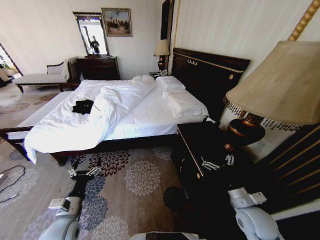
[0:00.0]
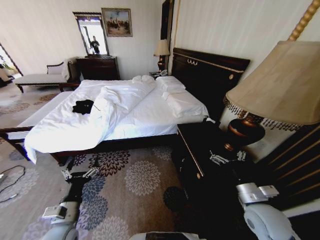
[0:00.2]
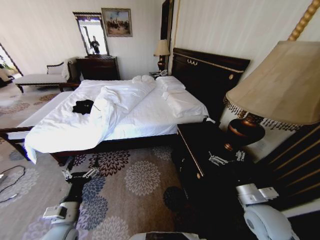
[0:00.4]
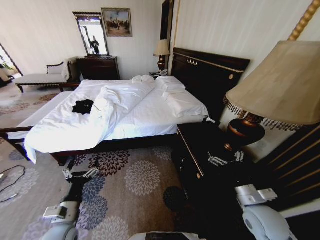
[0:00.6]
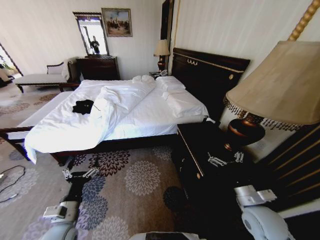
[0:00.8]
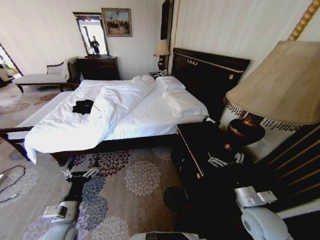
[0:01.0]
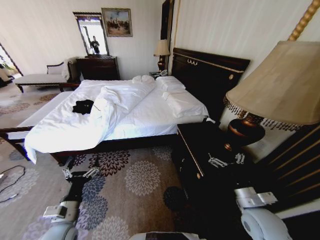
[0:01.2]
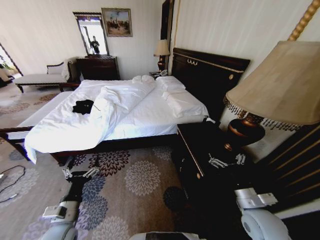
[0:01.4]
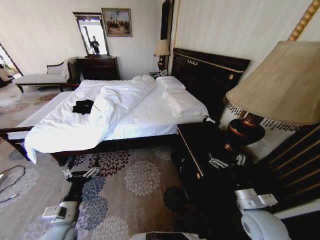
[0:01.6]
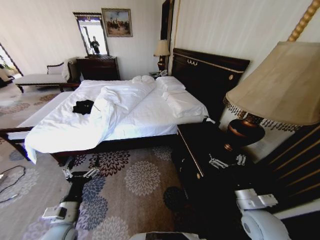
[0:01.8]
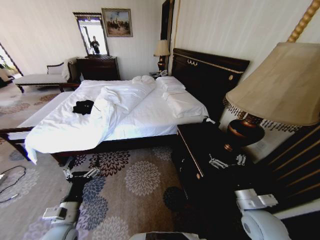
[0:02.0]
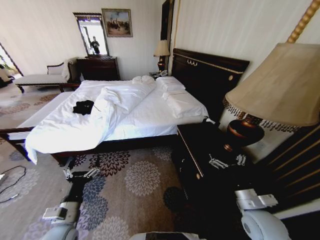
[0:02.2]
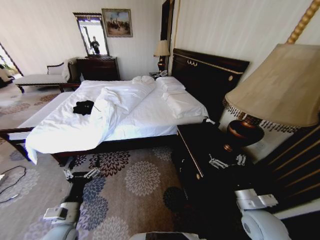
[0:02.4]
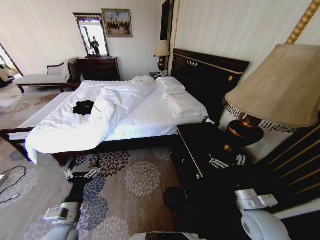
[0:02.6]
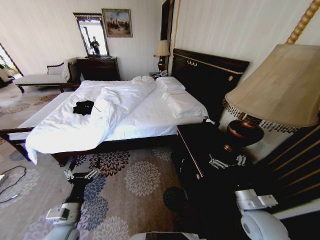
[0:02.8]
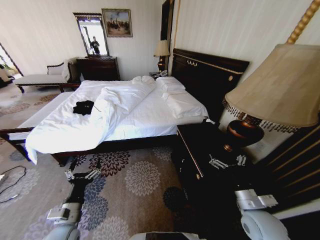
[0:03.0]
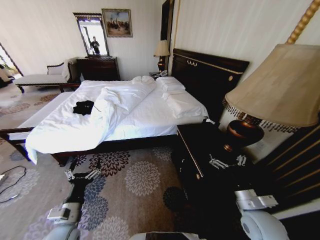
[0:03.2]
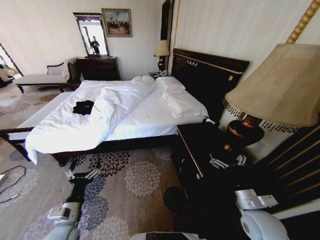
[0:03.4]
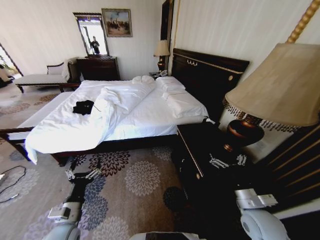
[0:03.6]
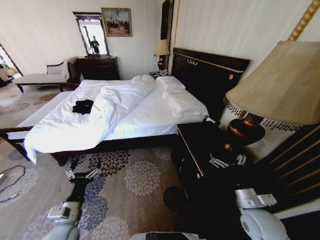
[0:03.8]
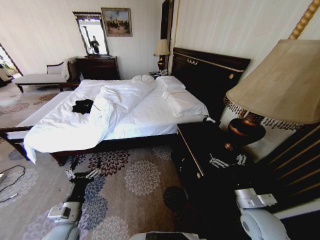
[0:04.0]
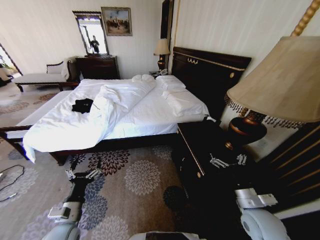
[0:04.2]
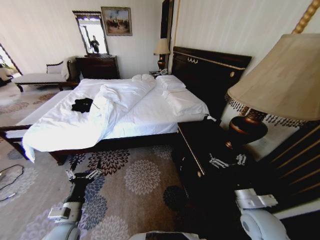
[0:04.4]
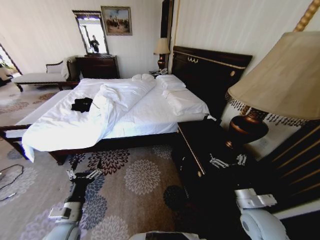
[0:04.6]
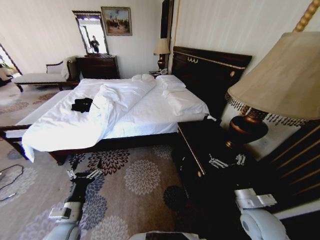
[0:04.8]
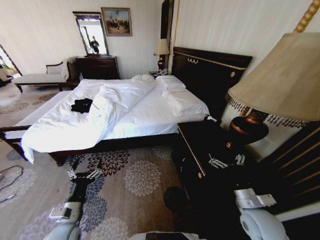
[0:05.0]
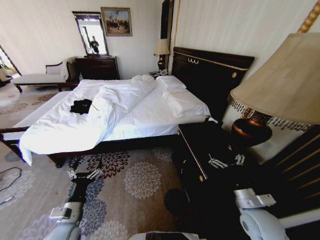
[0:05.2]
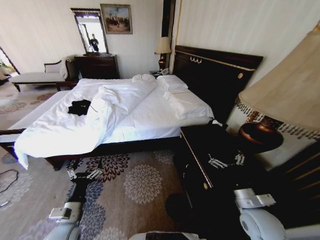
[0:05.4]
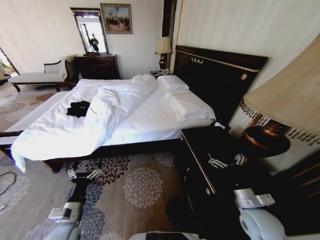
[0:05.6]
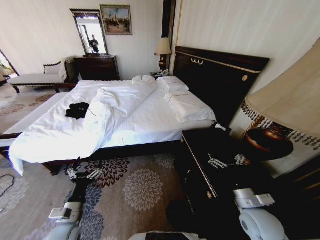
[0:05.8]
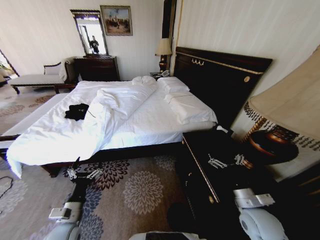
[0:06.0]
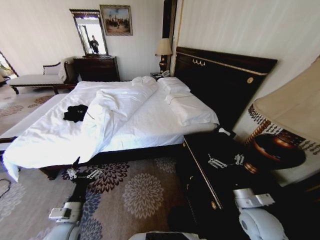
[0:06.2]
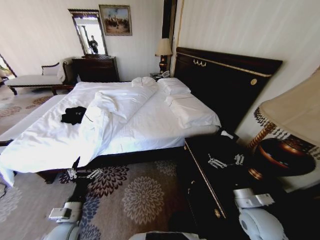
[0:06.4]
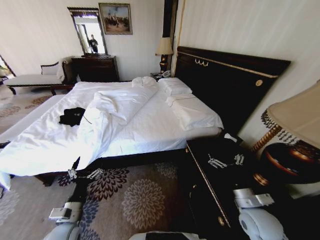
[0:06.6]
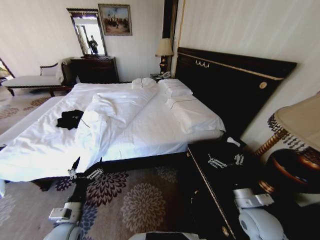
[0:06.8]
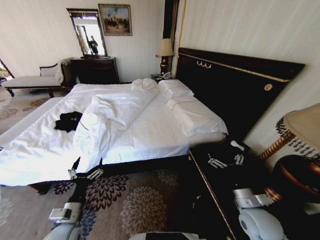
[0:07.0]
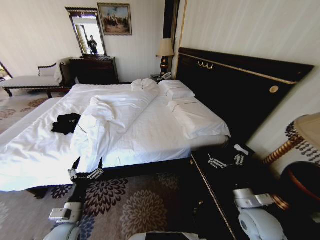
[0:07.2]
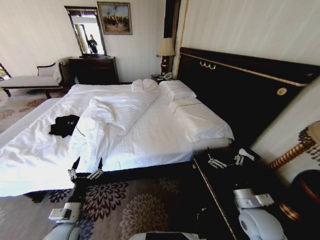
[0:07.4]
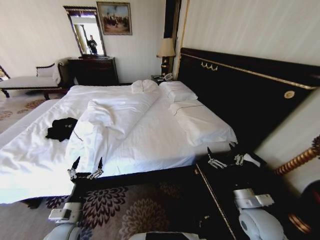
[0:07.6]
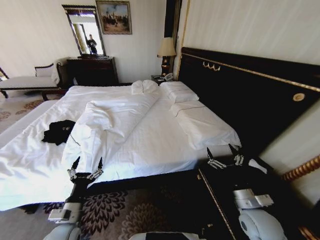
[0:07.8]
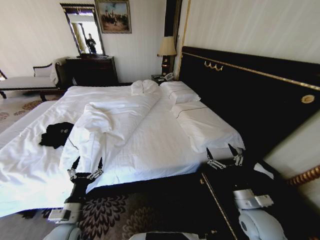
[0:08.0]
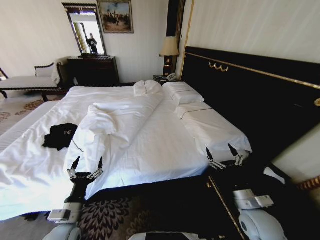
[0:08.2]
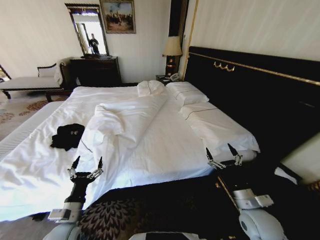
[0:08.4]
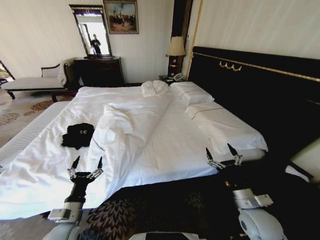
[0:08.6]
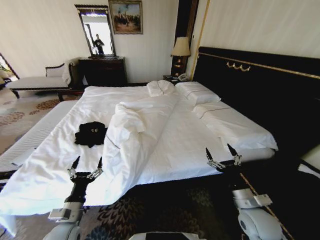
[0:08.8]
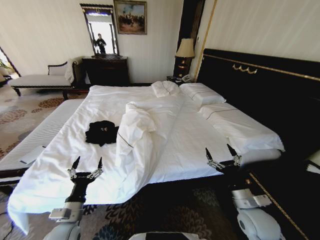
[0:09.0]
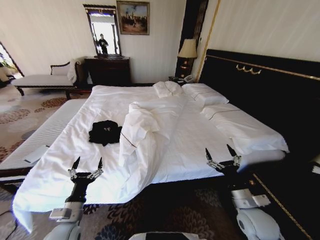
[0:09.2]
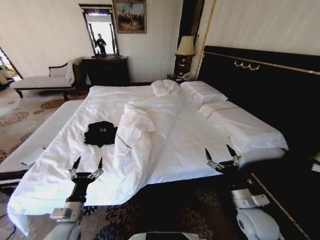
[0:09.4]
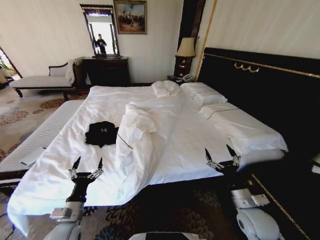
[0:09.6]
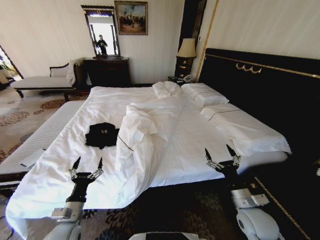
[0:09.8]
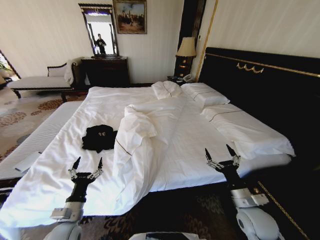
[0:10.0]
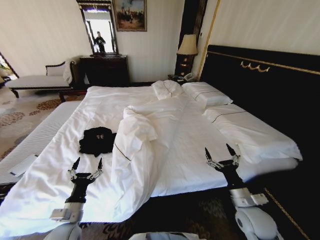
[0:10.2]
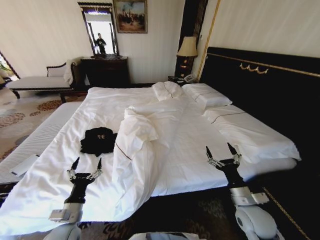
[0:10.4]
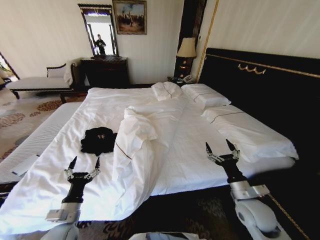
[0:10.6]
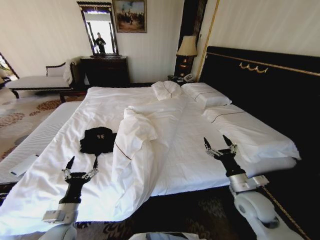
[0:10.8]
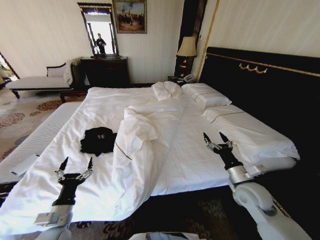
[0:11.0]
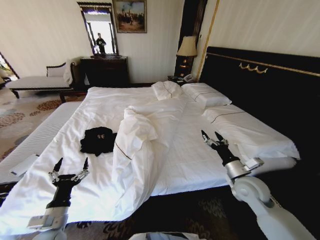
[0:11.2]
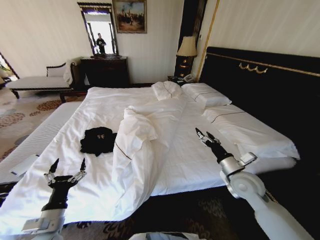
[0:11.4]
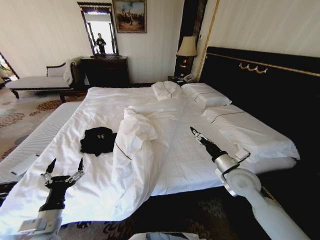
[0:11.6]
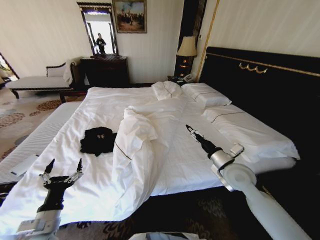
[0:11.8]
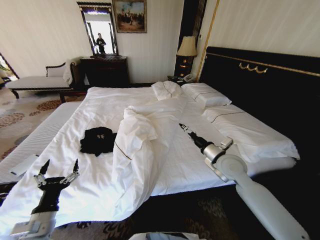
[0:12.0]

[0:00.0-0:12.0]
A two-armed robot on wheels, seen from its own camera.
Task of the whole recording: Fold the clothes on the bed.
0:01.6 to 0:03.0: Both grippers stay put.
0:03.0 to 0:04.4: Both grippers stay put.
0:10.4 to 0:12.0: The left gripper changes place by roughly 5 cm. Meanwhile the right gripper is displaced forward and upward by some 20 cm.

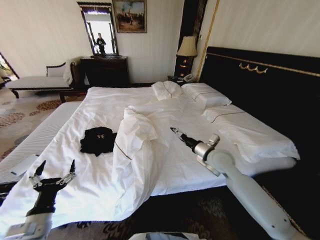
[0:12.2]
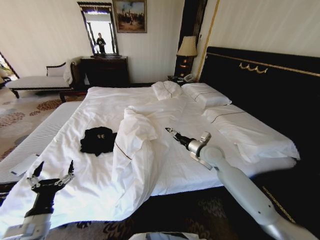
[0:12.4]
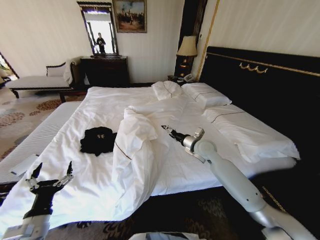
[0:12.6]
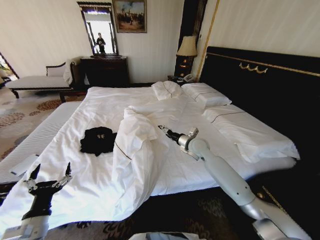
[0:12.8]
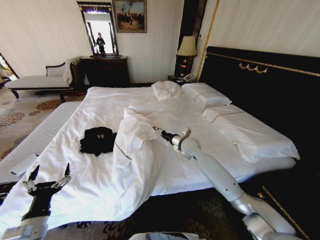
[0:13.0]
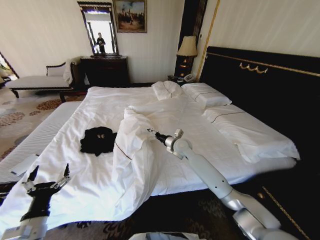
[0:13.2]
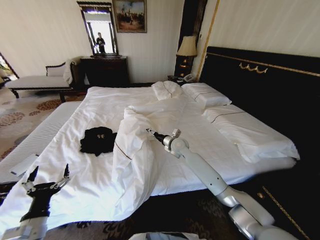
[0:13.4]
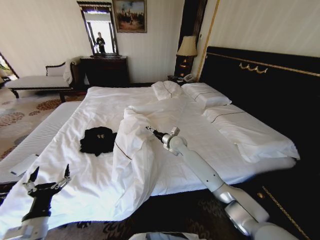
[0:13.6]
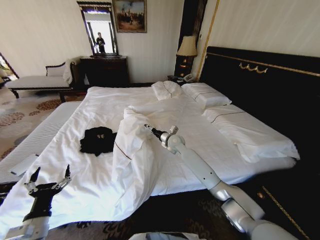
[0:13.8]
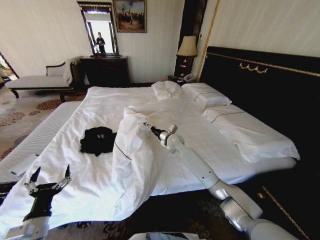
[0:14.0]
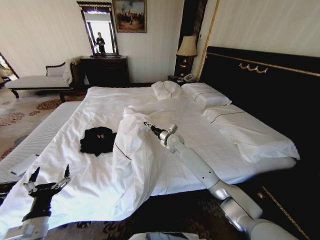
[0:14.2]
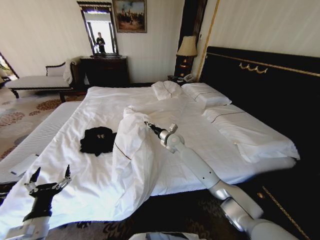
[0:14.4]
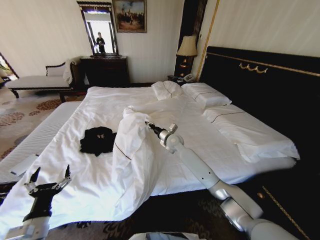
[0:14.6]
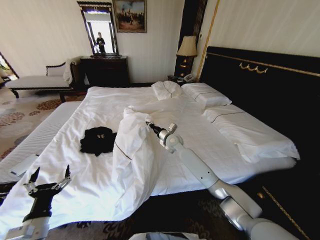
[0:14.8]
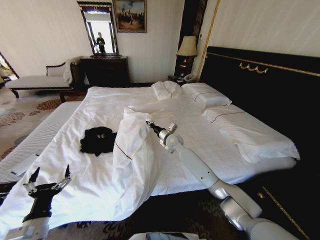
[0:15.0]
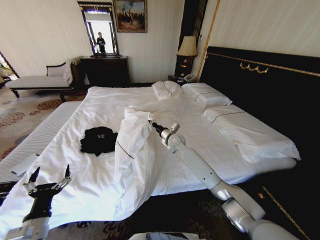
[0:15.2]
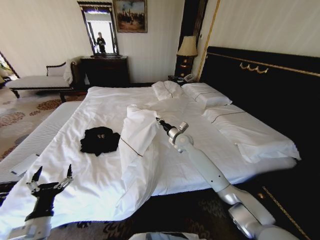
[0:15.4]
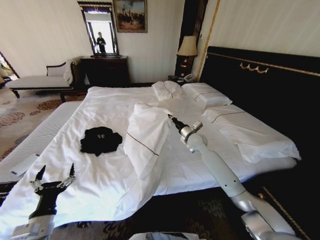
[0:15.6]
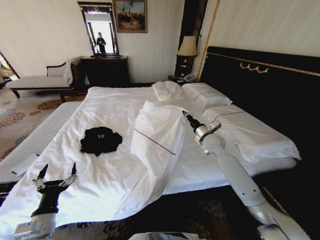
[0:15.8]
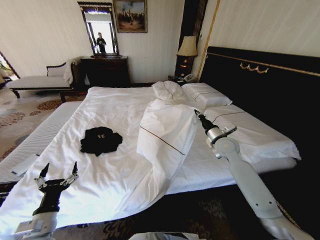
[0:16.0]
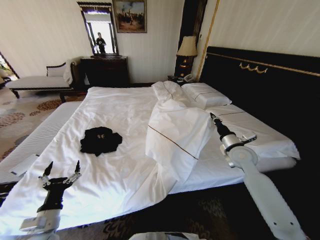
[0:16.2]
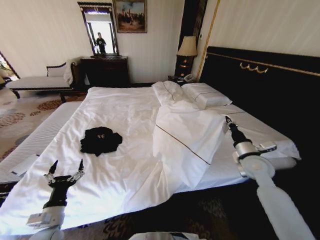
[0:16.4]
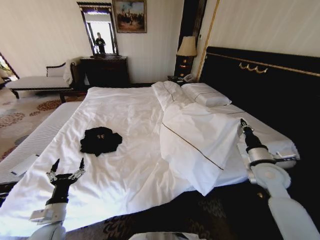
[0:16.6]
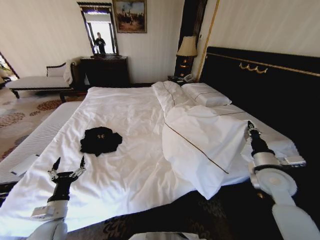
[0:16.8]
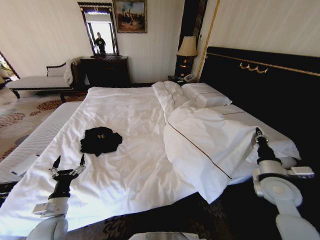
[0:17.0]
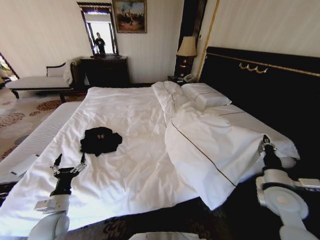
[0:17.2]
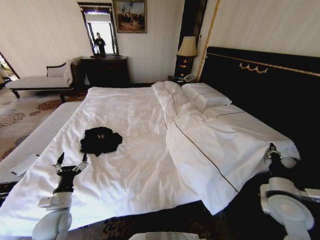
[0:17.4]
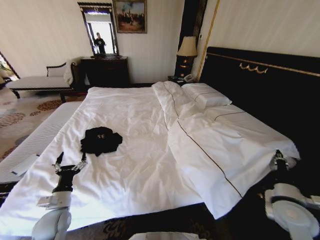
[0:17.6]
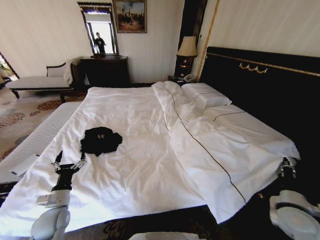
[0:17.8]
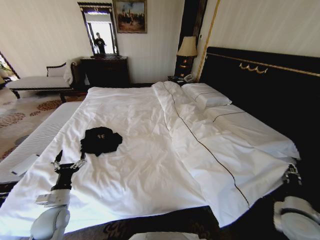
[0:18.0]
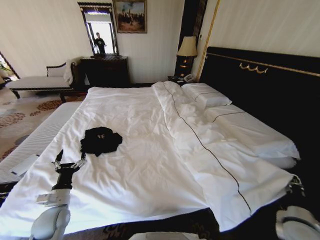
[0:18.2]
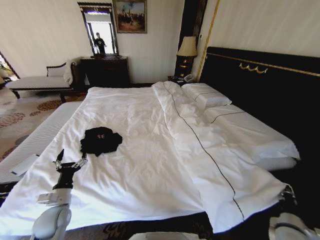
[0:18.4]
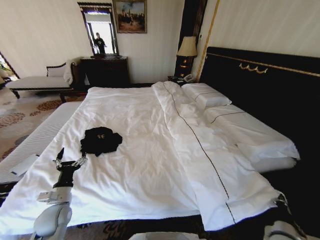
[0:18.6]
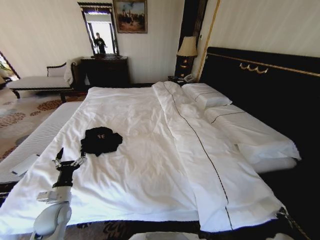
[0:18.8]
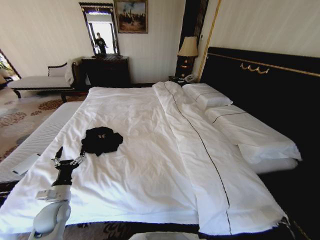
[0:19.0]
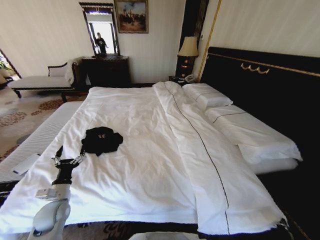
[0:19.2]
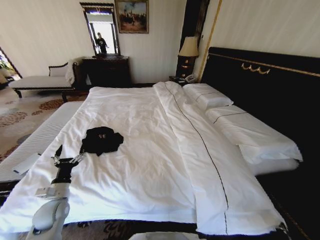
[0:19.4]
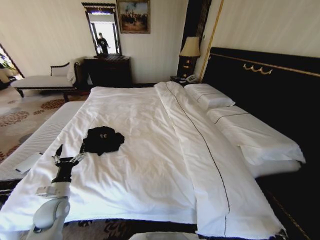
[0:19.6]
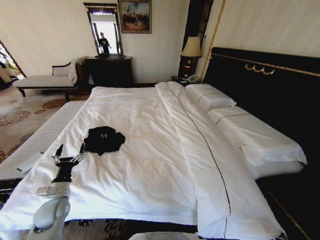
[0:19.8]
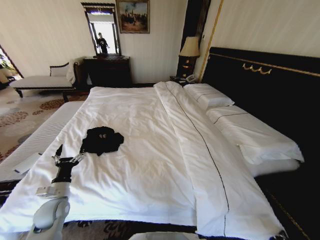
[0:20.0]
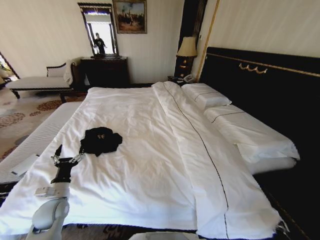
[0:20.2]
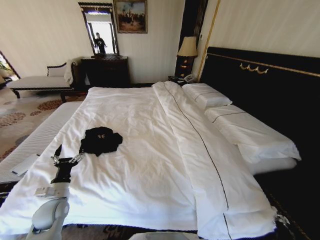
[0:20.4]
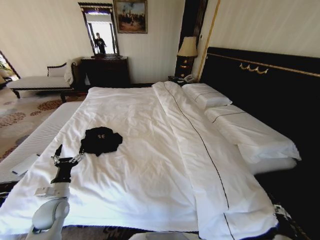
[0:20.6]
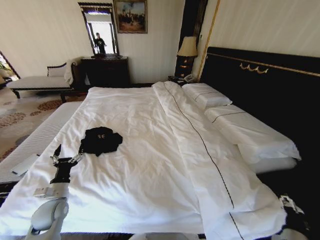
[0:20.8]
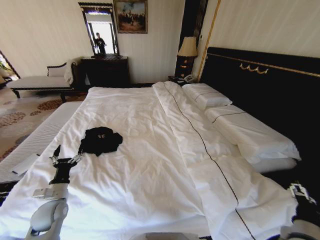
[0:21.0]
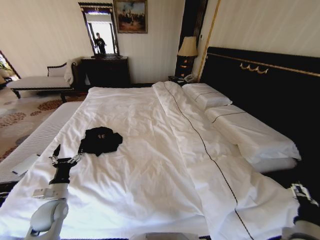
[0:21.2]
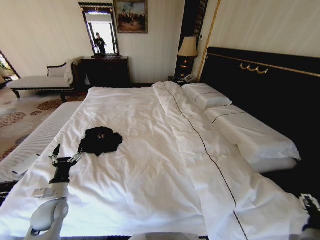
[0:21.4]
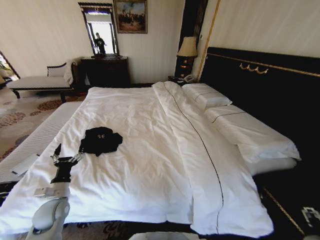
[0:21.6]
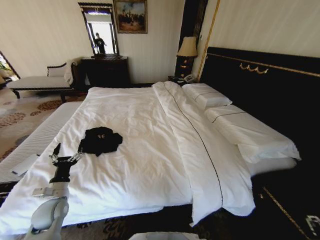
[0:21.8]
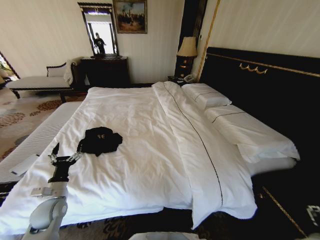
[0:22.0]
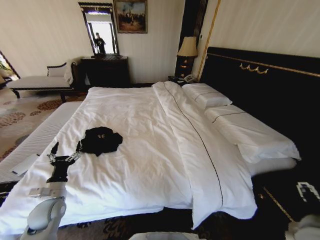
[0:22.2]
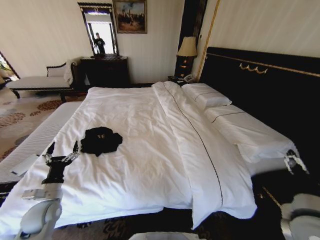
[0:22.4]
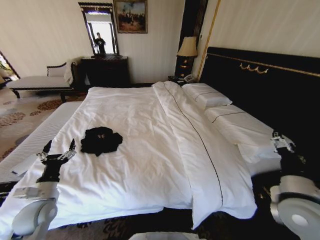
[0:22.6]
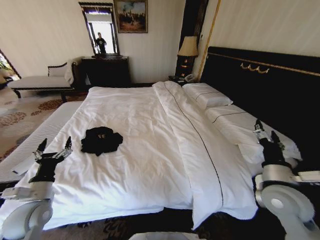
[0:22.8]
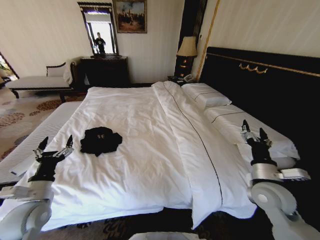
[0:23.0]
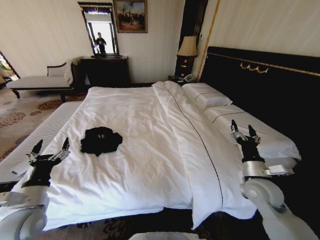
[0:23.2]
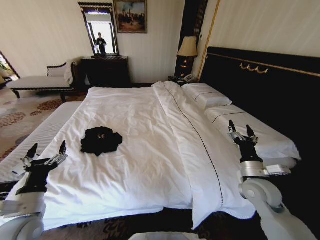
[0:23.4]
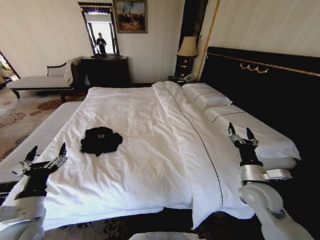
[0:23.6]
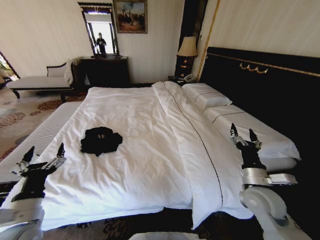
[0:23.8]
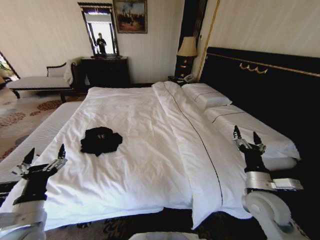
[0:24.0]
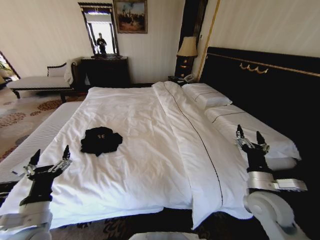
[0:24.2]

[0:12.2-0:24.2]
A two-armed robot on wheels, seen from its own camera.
Task of the whole recording: Fold the clothes on the bed.
0:12.2 to 0:13.8: The right gripper travels forward, to the left and downward by some 20 cm.
0:13.8 to 0:15.2: The right gripper closes up.
0:15.2 to 0:16.6: The right gripper shifts roughly 35 cm to the right and backward, while the left gripper moves approximately 5 cm.
0:16.6 to 0:18.2: The left gripper moves forward, some 5 cm, while the right gripper shifts roughly 20 cm backward, downward and to the right.
0:18.2 to 0:19.8: The right gripper moves downward and backward, some 20 cm.
0:19.8 to 0:21.2: The right gripper goes roughly 20 cm upward, and opens up.
0:21.2 to 0:22.6: The right gripper goes about 15 cm upward and forward, while the left gripper shifts by about 5 cm.
0:22.6 to 0:24.2: The left gripper heads backward and to the right, covering about 10 cm. The right gripper travels downward by roughly 5 cm.
